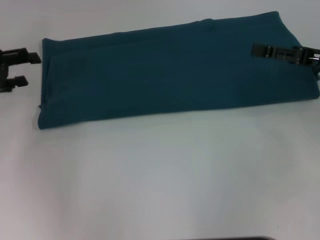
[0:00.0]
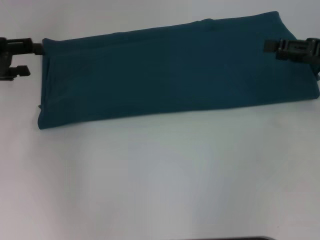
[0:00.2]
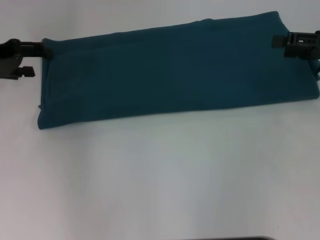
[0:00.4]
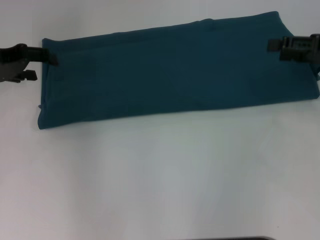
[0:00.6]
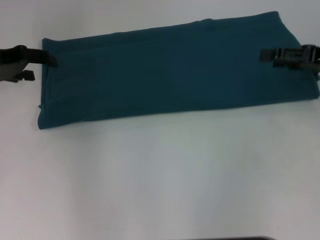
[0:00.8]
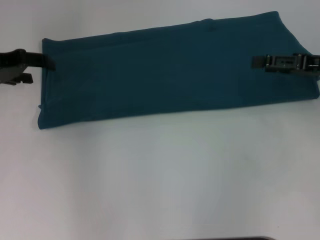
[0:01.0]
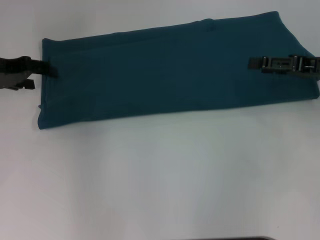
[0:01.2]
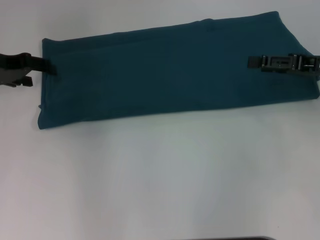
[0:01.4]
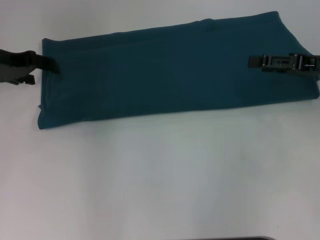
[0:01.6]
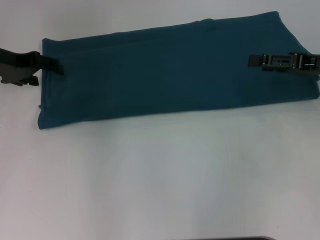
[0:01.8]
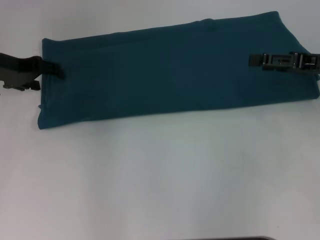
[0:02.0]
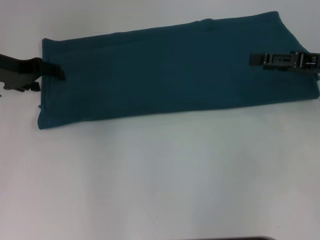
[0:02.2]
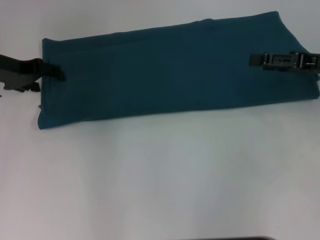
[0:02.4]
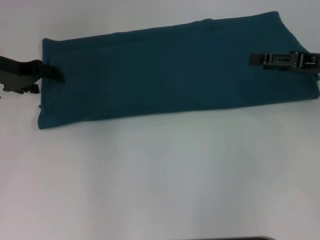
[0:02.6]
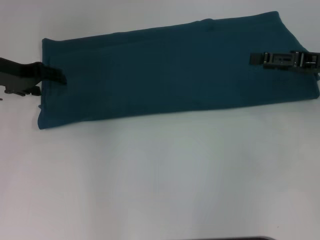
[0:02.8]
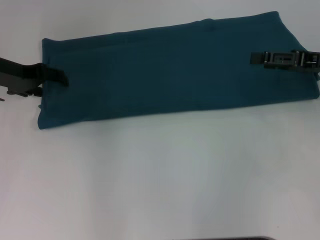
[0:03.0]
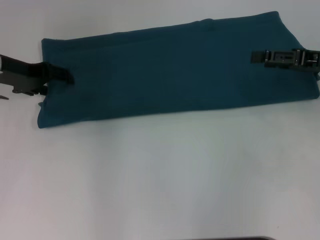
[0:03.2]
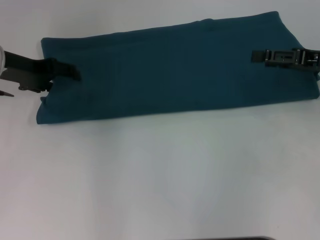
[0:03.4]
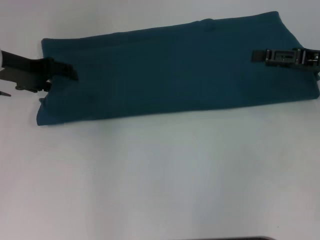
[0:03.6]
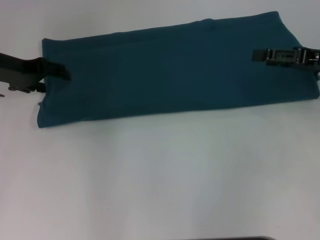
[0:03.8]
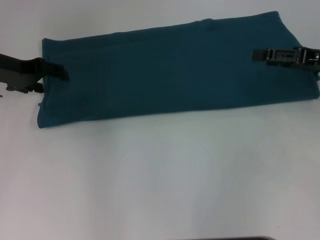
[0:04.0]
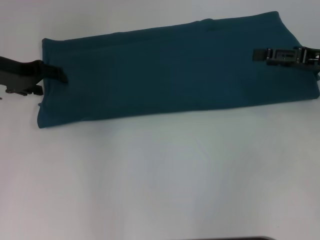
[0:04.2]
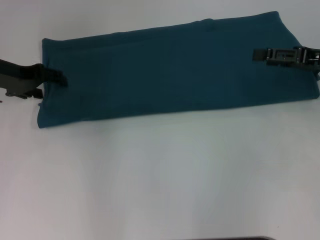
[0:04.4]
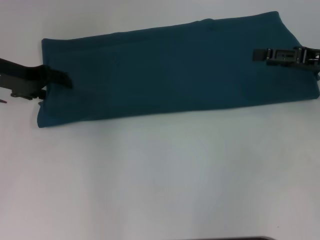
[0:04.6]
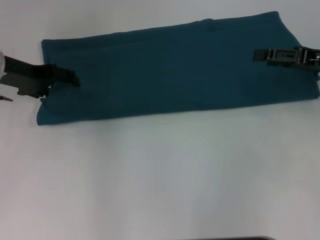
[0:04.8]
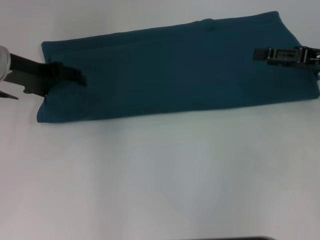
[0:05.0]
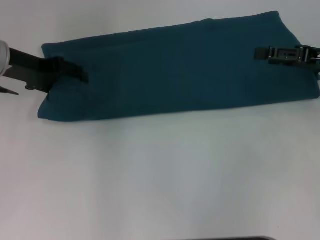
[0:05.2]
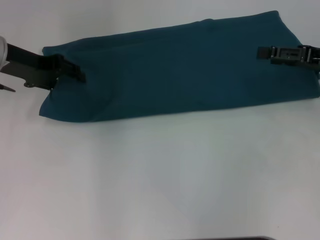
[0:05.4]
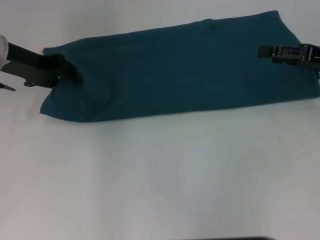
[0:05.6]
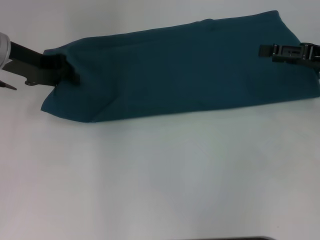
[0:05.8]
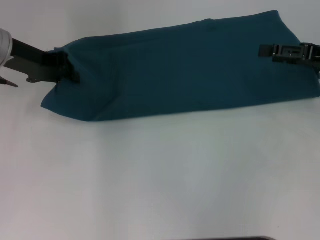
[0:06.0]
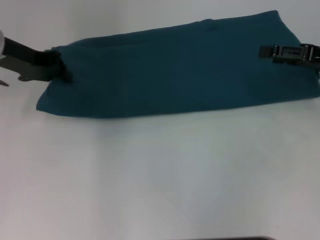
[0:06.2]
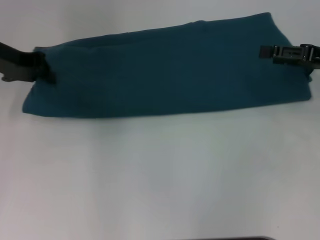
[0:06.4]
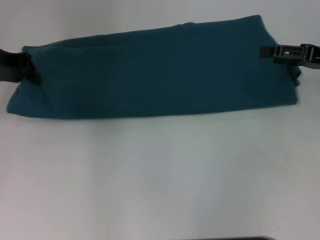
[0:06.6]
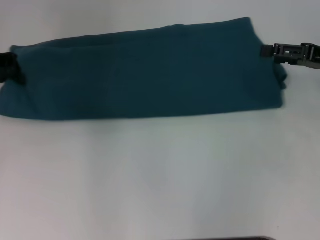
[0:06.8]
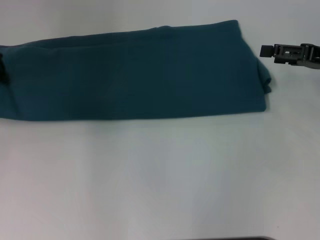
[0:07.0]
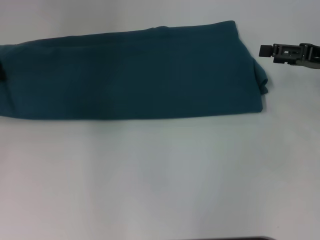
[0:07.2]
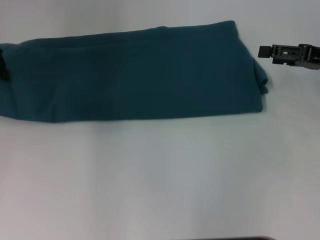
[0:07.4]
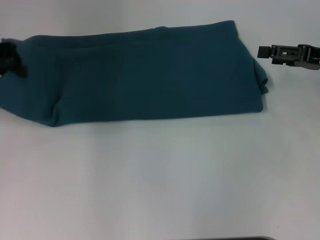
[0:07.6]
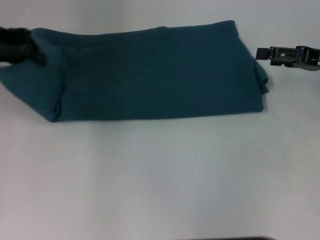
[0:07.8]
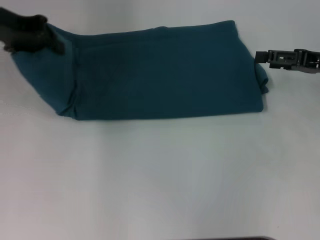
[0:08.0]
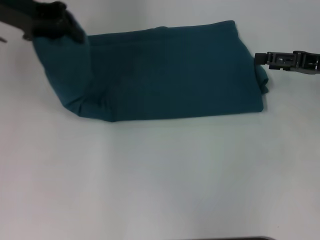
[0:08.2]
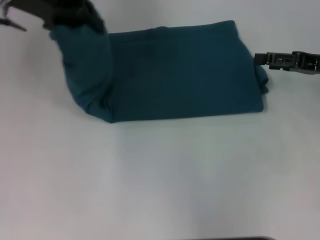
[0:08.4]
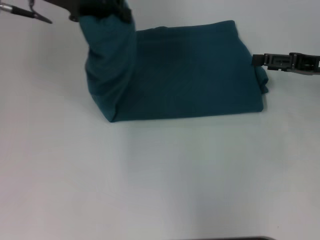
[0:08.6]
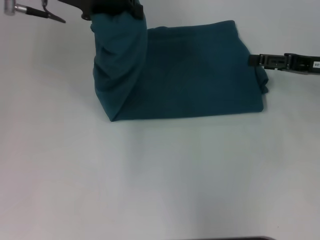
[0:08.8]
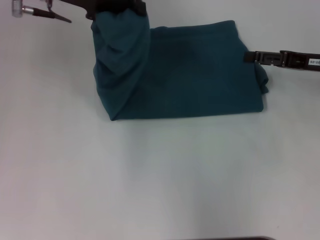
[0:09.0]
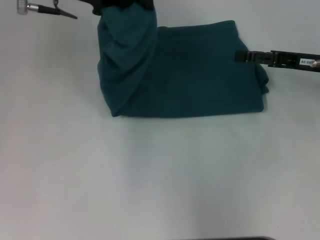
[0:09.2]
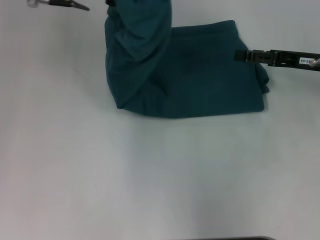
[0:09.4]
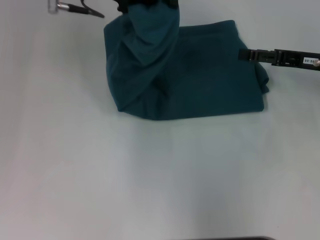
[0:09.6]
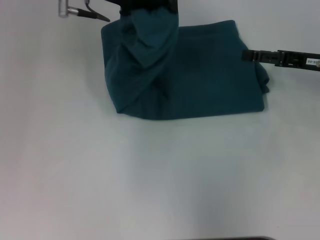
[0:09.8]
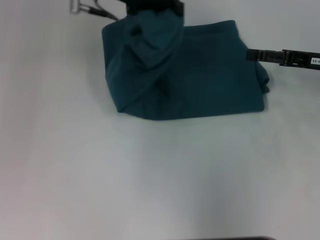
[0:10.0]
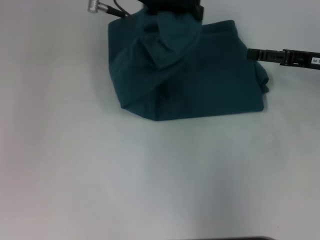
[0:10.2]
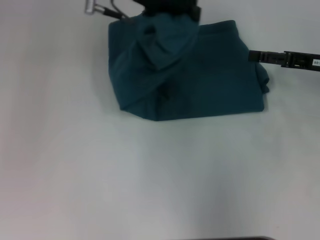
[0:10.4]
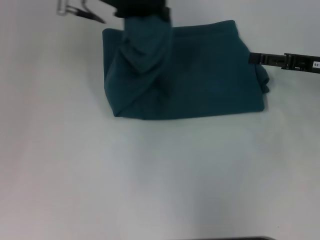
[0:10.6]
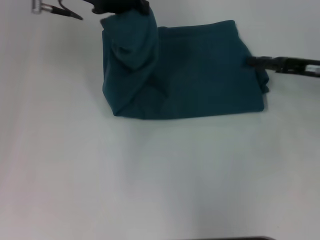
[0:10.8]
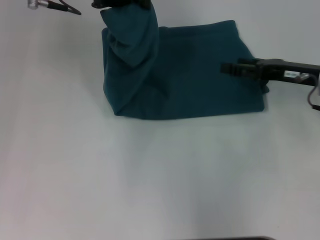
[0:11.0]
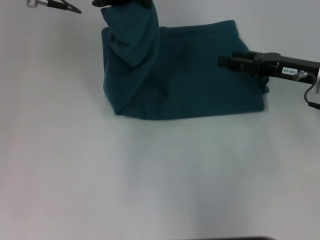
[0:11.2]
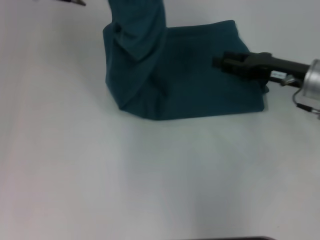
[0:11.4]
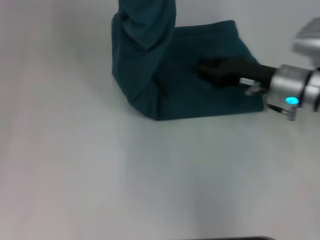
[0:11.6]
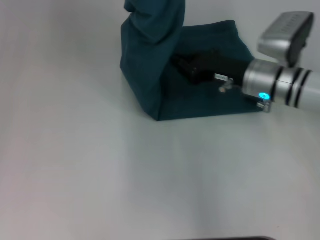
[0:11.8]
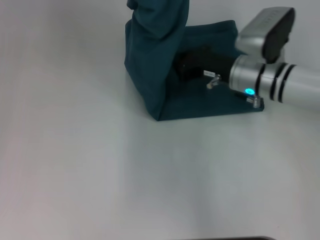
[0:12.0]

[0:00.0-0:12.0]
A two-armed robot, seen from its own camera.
0:00.0 to 0:01.6: The left gripper is displaced forward and to the right by some 10 cm.
0:01.6 to 0:03.0: There are only small adjustments of the grippers.
0:03.0 to 0:04.4: Neither gripper changes place.
0:04.4 to 0:06.0: The left gripper closes.
0:06.0 to 0:07.6: The left gripper moves approximately 5 cm.
0:07.6 to 0:09.0: The left gripper travels to the right by roughly 15 cm.
0:09.0 to 0:10.4: The left gripper heads to the right, covering about 10 cm.
0:10.4 to 0:12.0: The right gripper heads to the left, covering roughly 15 cm, and closes its fingers. Meanwhile the left gripper shifts some 10 cm upward and to the left.

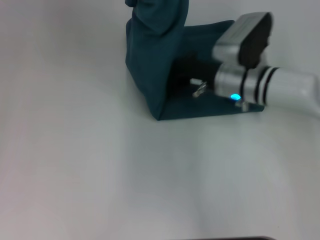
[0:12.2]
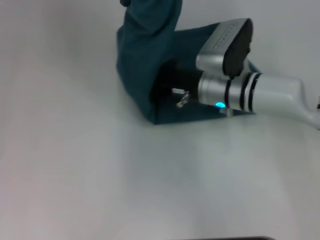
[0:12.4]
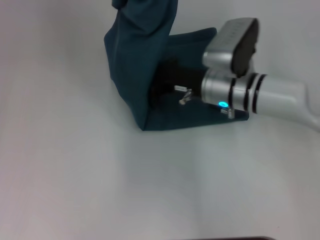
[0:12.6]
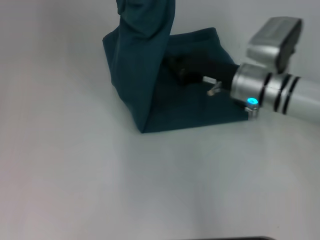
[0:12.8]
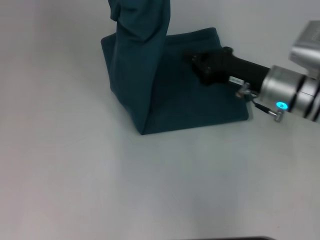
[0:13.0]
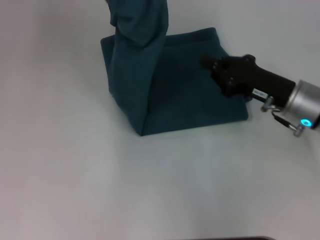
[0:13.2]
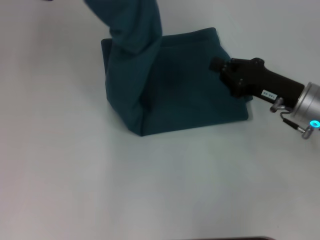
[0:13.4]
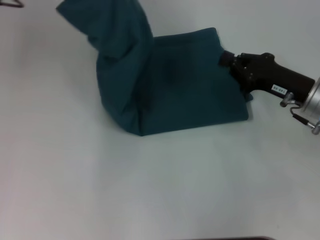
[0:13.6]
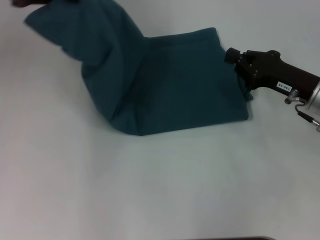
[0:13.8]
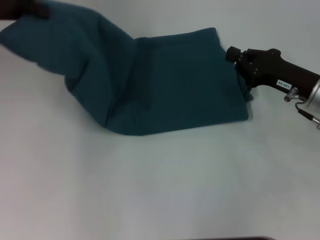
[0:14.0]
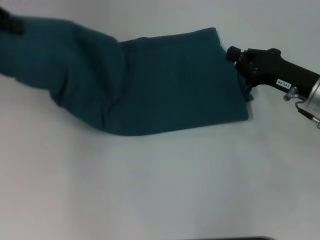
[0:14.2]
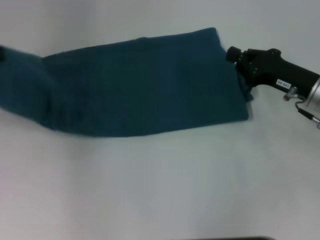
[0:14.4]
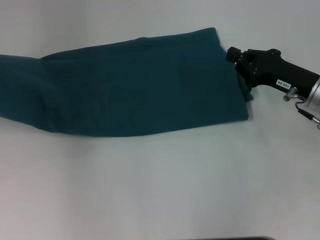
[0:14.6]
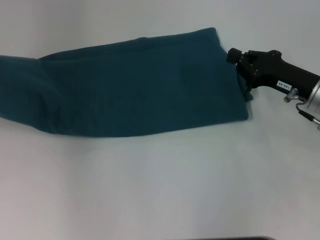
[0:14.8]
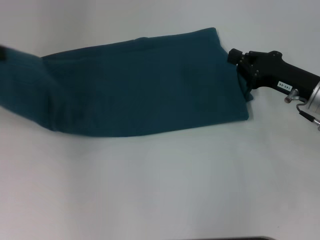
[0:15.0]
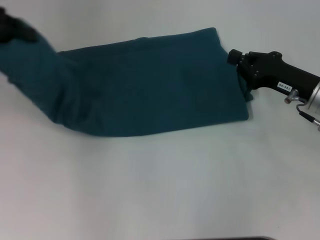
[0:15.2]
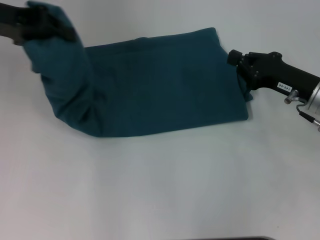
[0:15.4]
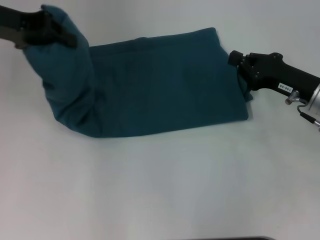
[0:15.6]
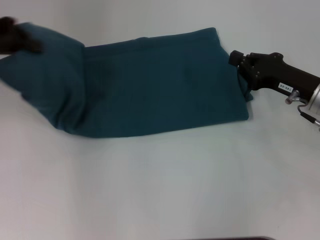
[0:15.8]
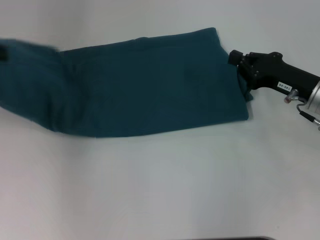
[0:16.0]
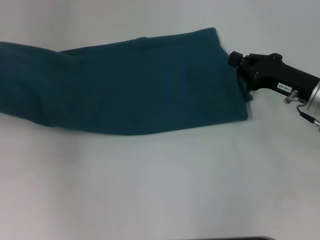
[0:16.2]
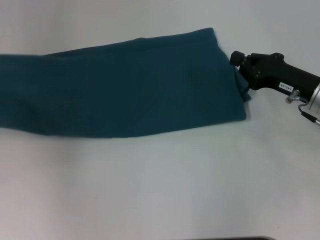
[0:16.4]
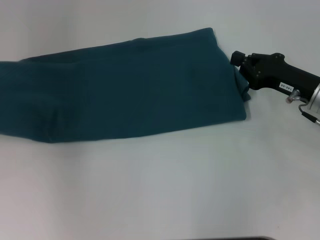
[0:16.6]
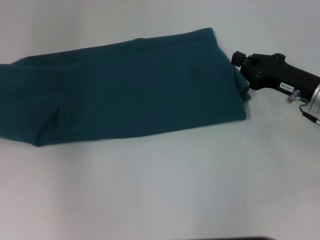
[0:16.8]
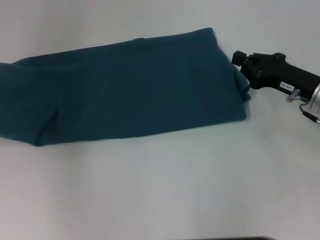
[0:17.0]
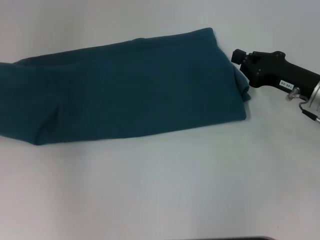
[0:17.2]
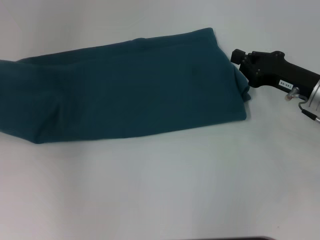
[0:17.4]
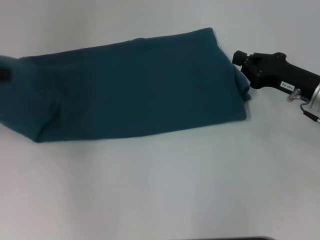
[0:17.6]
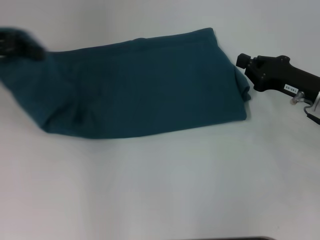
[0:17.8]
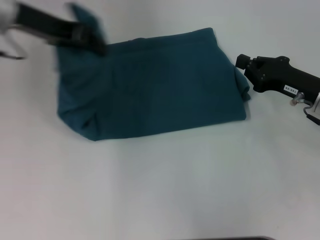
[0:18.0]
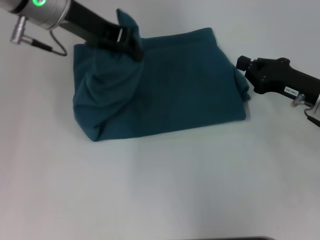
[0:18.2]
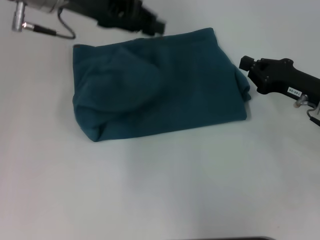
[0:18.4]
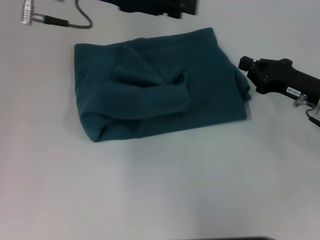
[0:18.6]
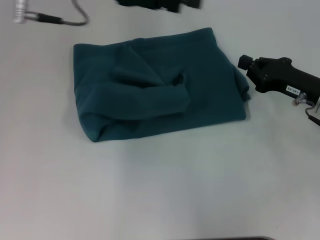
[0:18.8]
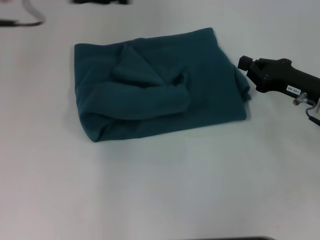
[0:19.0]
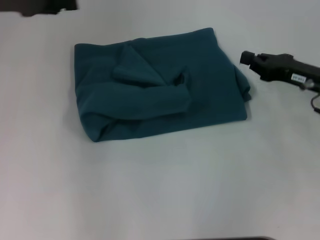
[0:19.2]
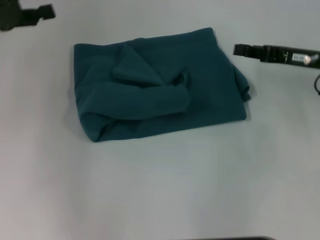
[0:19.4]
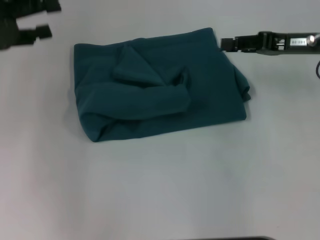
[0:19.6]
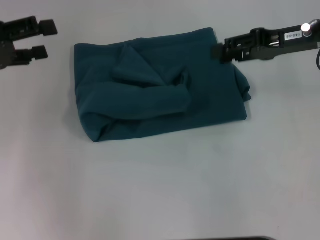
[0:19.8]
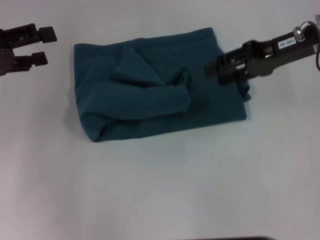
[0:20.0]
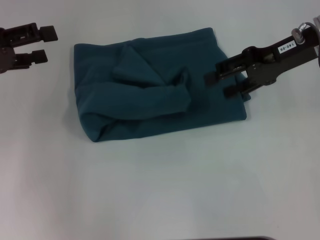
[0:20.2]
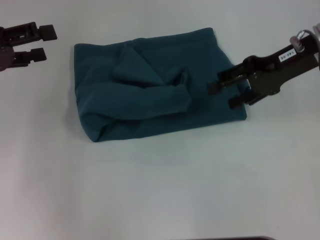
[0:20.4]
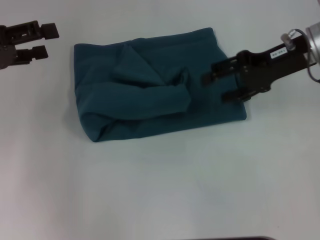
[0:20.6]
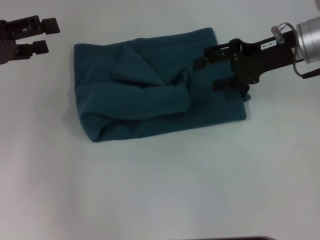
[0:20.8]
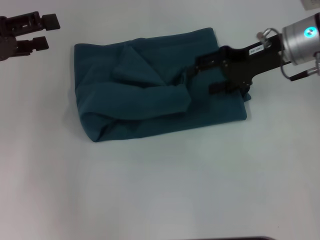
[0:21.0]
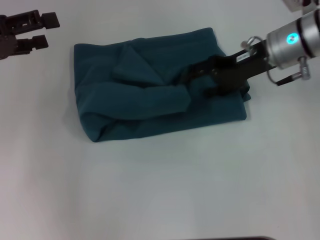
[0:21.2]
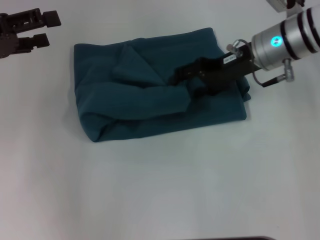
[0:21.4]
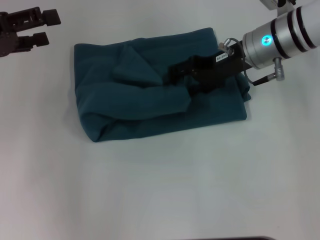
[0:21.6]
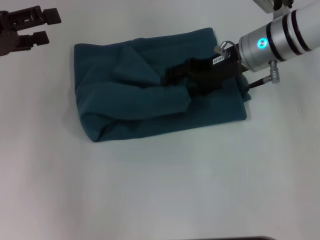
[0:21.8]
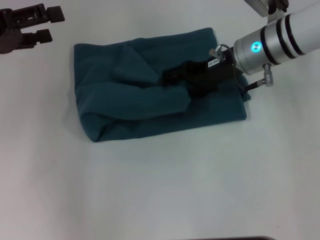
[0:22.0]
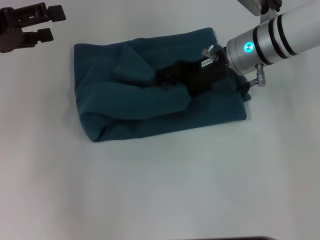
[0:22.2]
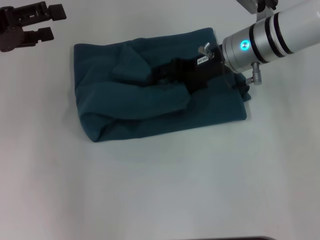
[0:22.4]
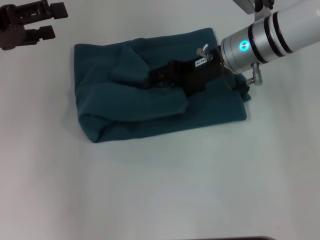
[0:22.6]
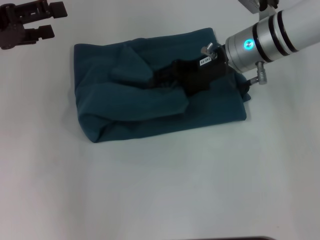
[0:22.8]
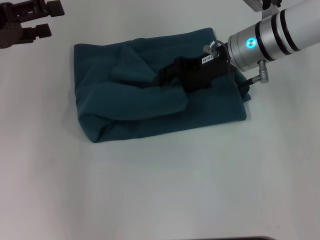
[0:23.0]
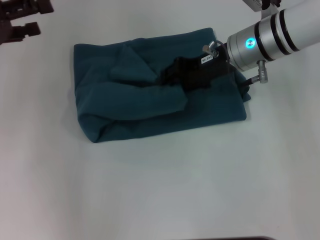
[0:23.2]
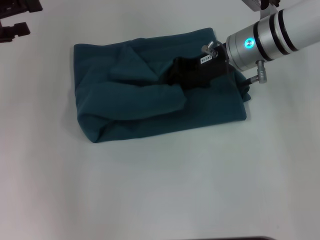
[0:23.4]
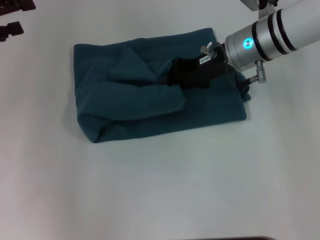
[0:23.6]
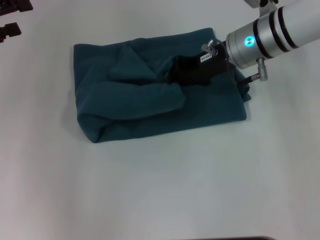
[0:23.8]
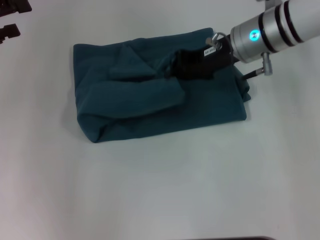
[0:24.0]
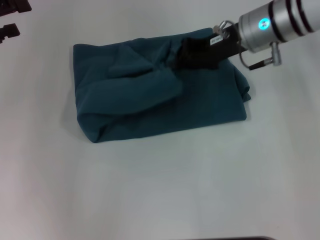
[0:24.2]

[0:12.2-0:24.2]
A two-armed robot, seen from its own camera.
Step, 0:13.2 to 0:18.8: Fold the clothes to the left.
0:12.2 to 0:13.8: The right gripper goes approximately 15 cm to the right and backward. The left gripper heads to the left, covering roughly 10 cm.
0:13.8 to 0:15.2: The left gripper goes approximately 5 cm to the left.
0:15.2 to 0:16.6: The left gripper moves to the left, some 5 cm.
0:16.6 to 0:18.2: The left gripper travels to the right by roughly 20 cm.
0:18.2 to 0:19.8: The right gripper shifts approximately 15 cm upward and forward. Meanwhile the left gripper goes about 20 cm to the left and backward, and opens up.
0:19.8 to 0:21.2: The right gripper is displaced to the left by roughly 5 cm, and opens its fingers.
0:21.2 to 0:22.6: The right gripper moves to the left, about 5 cm.
0:22.6 to 0:24.2: The right gripper closes its fingers.
